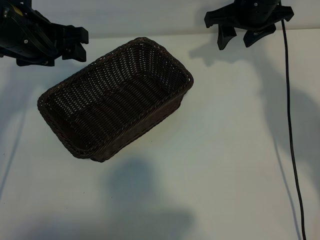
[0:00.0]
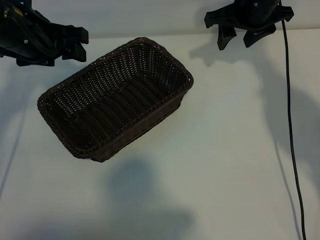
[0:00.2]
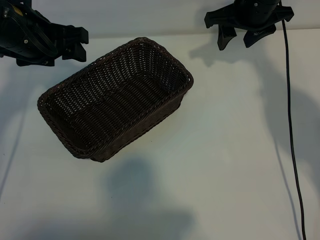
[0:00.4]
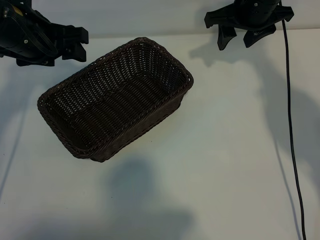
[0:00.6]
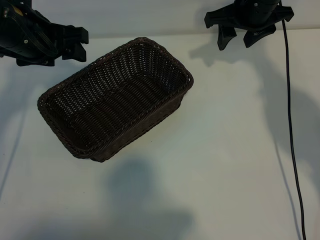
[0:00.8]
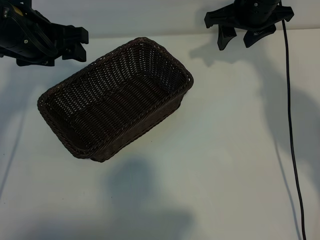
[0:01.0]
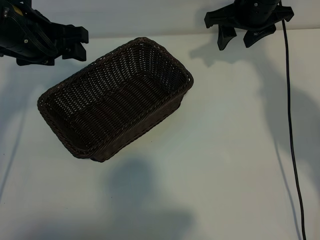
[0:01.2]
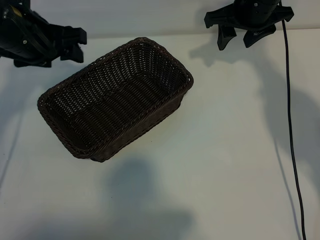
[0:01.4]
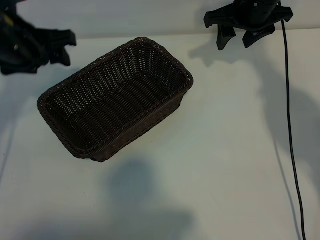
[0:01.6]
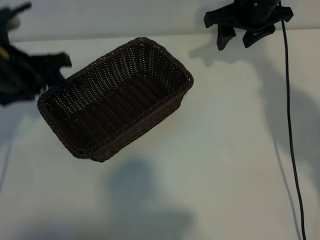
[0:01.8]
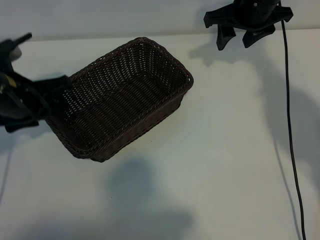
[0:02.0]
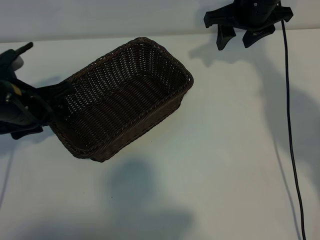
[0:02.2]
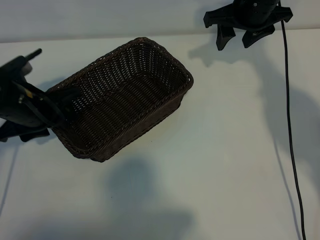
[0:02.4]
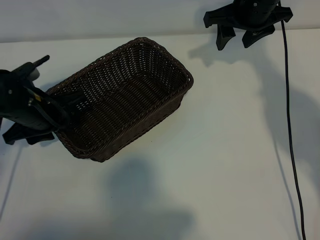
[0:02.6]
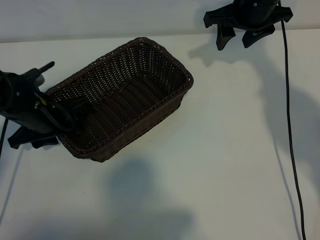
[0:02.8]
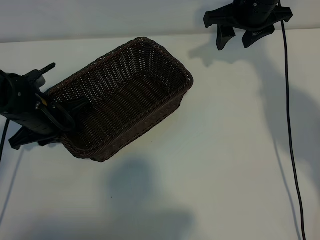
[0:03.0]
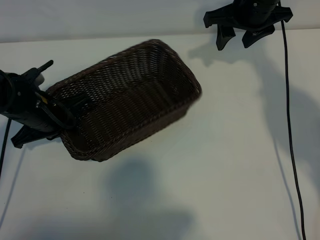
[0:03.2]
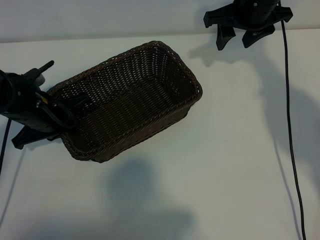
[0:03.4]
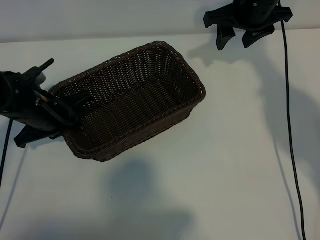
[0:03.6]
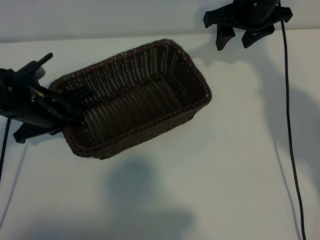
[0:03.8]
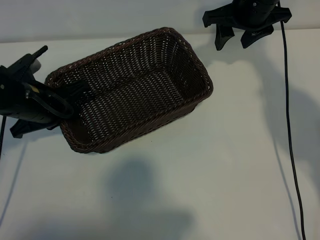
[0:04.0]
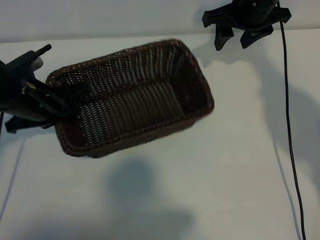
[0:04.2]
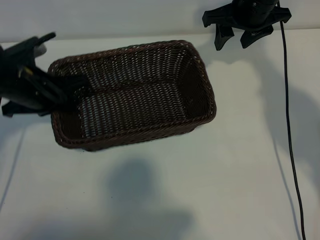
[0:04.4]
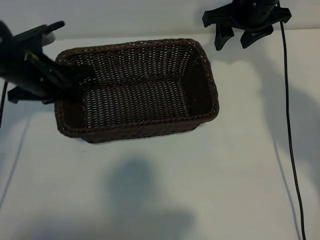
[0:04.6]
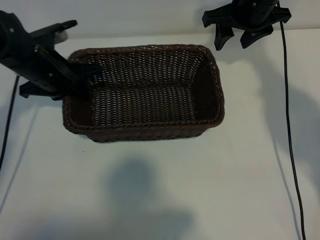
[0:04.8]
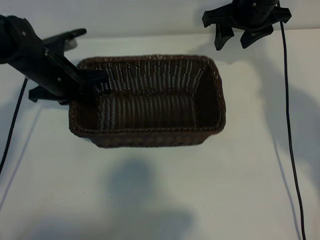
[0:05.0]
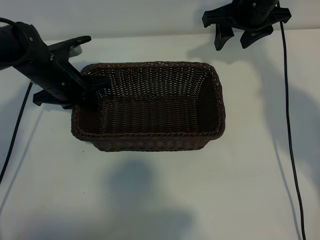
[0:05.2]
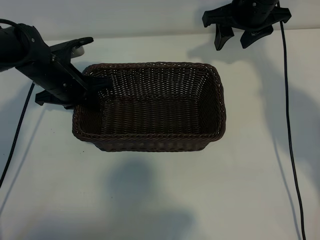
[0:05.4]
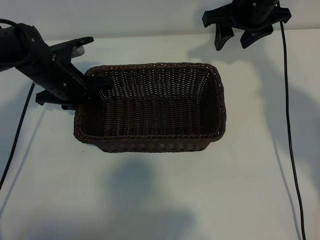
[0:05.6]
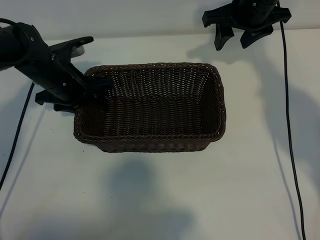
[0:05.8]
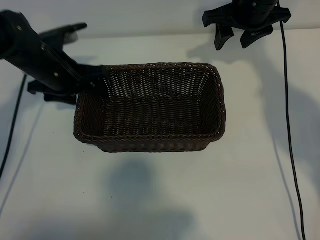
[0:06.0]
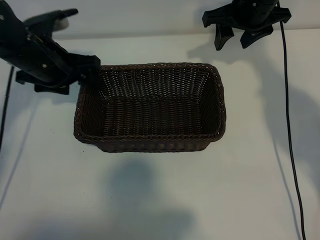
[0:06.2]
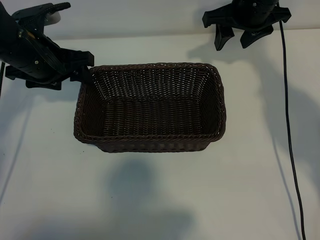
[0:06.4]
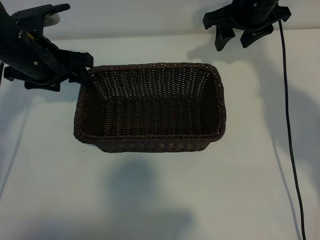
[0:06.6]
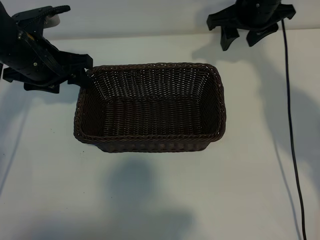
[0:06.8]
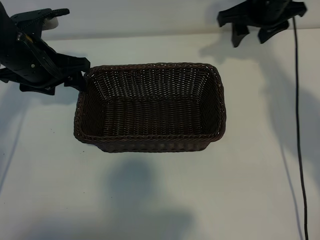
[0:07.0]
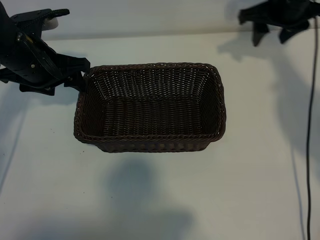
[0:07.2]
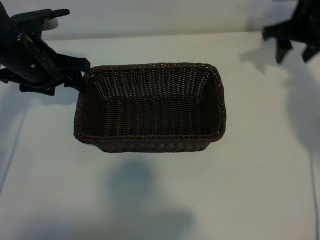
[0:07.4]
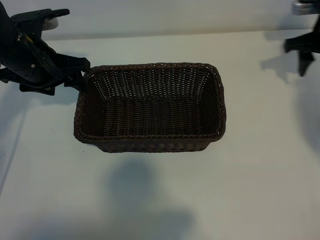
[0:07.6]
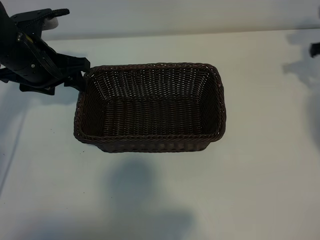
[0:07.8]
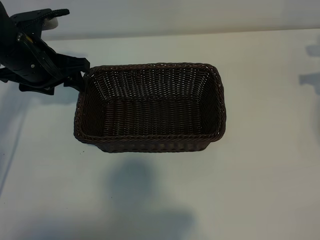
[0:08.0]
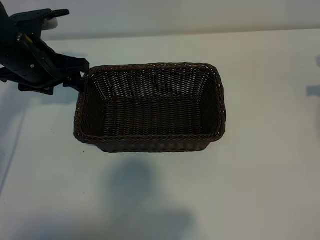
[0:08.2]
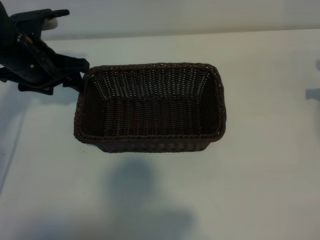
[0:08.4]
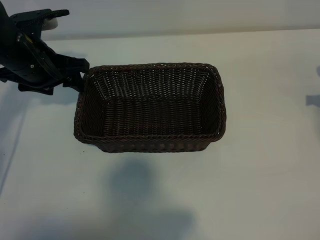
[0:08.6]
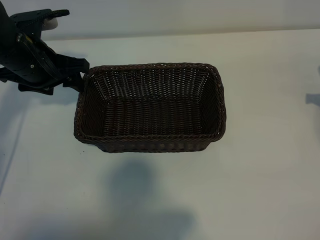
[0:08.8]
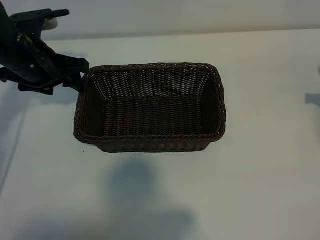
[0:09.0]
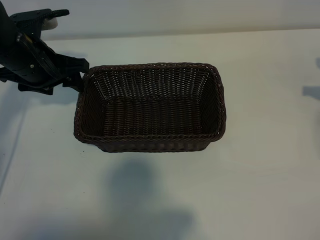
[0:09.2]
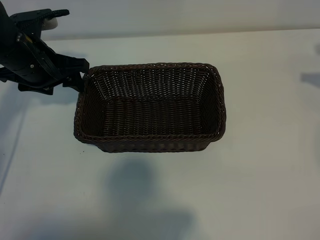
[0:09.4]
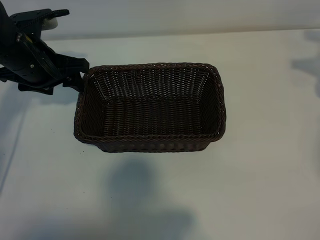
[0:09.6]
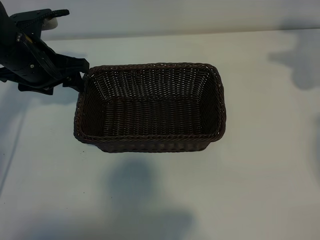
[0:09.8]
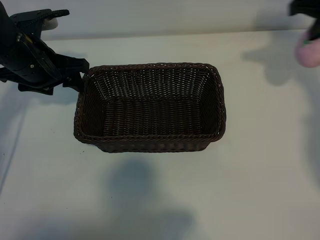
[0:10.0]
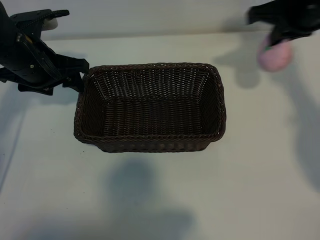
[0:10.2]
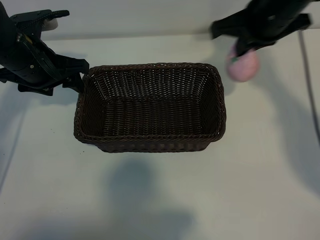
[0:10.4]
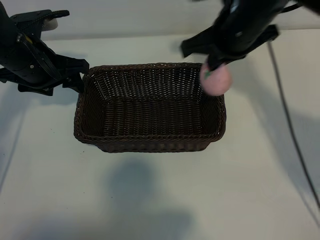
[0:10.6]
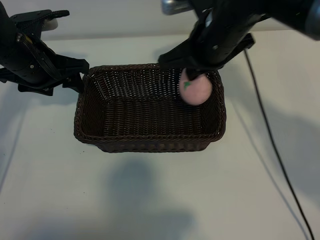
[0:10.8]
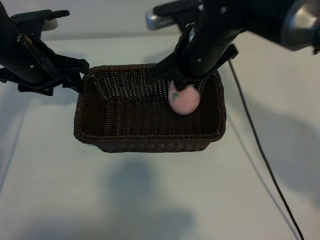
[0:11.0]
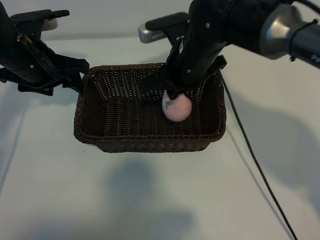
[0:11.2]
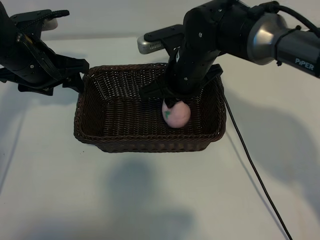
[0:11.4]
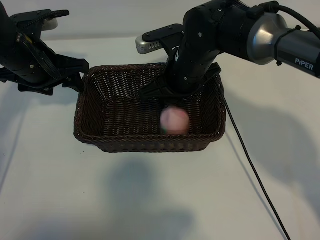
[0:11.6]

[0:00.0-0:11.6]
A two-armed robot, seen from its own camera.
Task of the whole recording: pick up the peach and put it into the basket.
Step, 0:01.2 to 0:03.2: Grasp the basket with left gripper.
Step, 0:03.4 to 0:05.6: Place the basket in the center of view with left gripper.
Step, 0:06.0 to 0:08.8: Grasp the peach with right gripper.

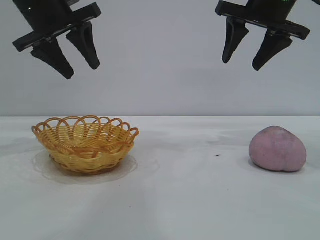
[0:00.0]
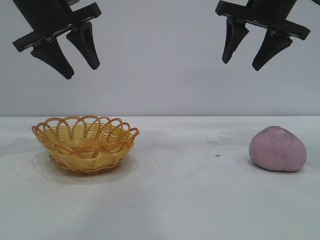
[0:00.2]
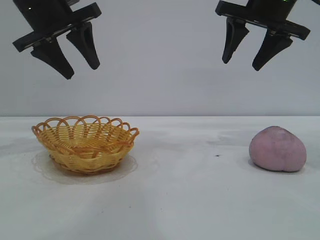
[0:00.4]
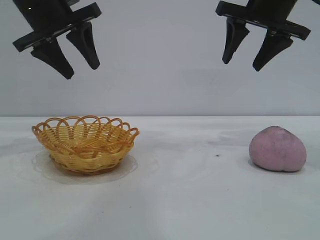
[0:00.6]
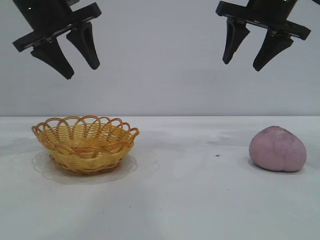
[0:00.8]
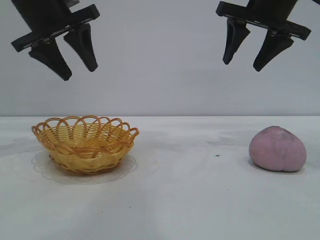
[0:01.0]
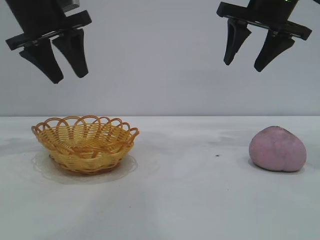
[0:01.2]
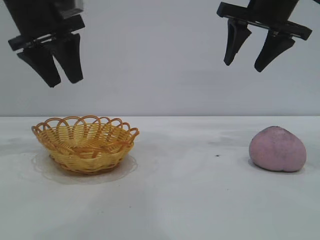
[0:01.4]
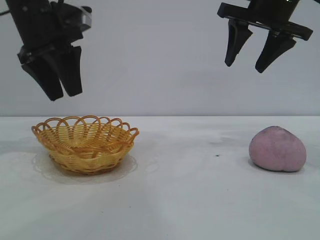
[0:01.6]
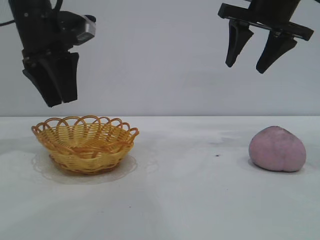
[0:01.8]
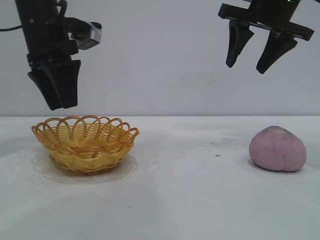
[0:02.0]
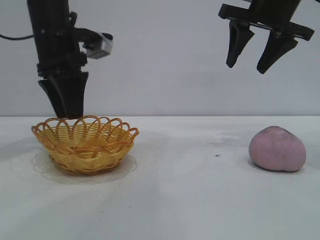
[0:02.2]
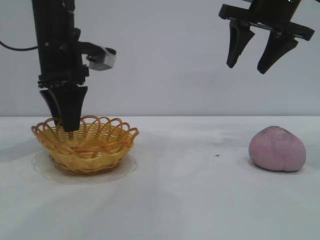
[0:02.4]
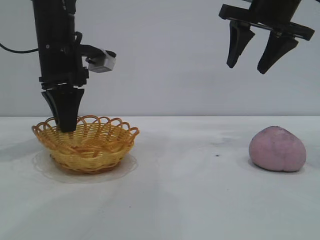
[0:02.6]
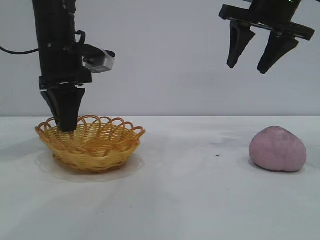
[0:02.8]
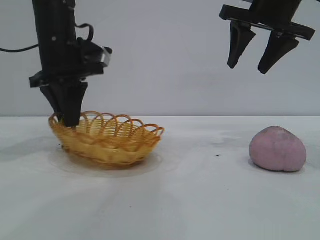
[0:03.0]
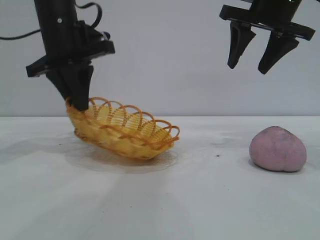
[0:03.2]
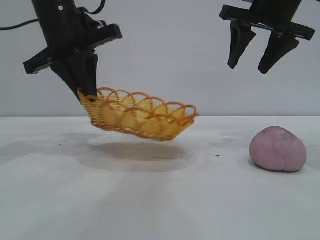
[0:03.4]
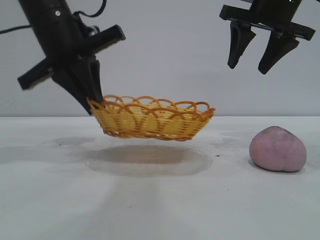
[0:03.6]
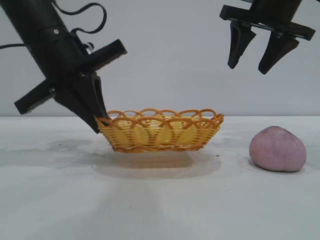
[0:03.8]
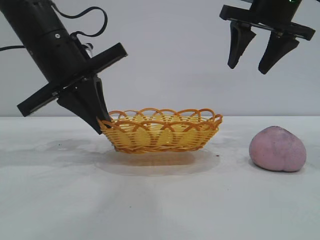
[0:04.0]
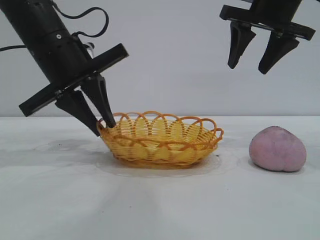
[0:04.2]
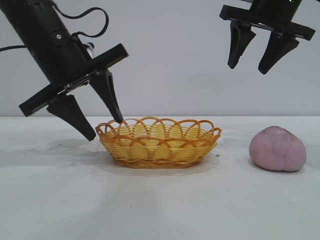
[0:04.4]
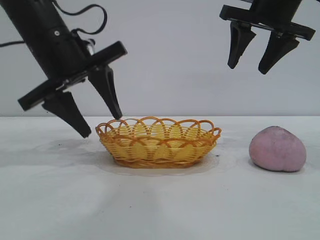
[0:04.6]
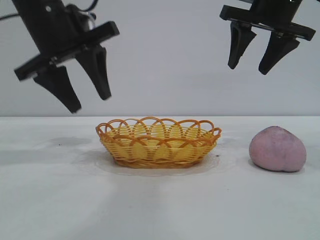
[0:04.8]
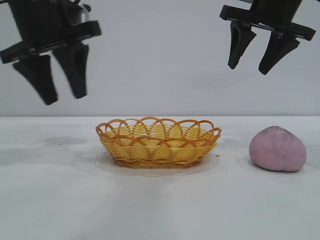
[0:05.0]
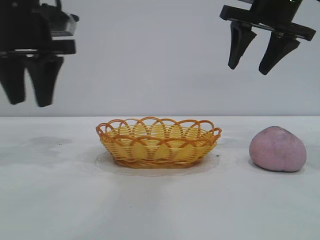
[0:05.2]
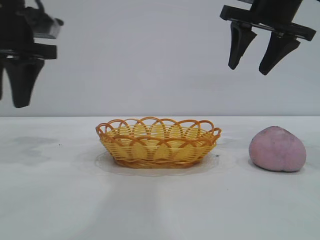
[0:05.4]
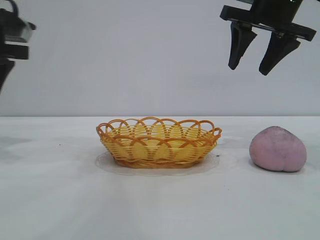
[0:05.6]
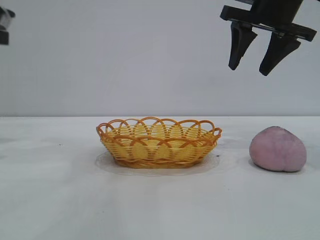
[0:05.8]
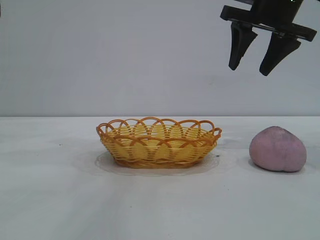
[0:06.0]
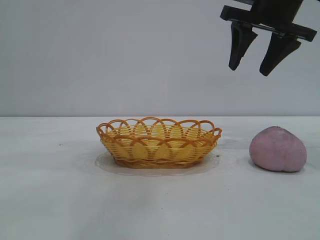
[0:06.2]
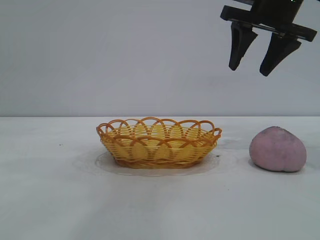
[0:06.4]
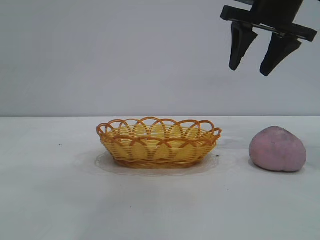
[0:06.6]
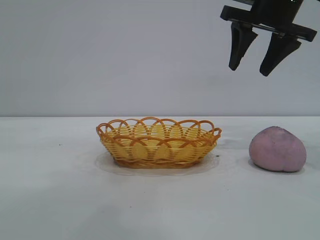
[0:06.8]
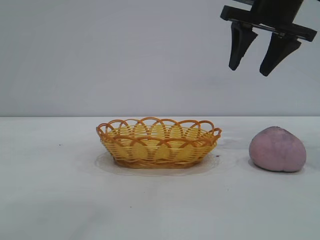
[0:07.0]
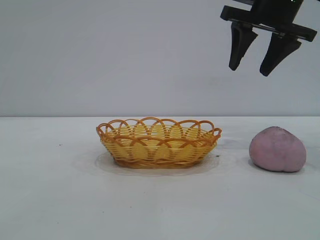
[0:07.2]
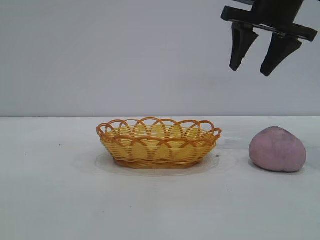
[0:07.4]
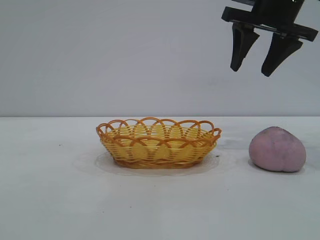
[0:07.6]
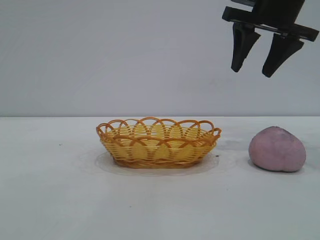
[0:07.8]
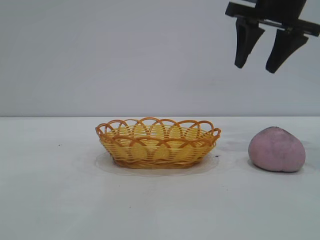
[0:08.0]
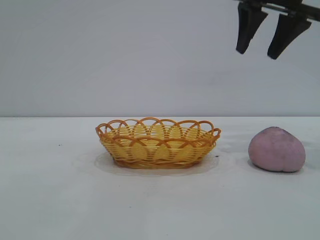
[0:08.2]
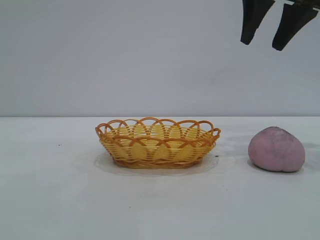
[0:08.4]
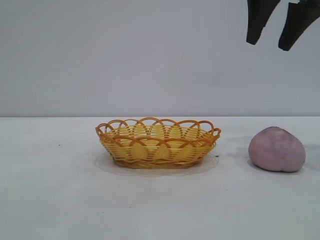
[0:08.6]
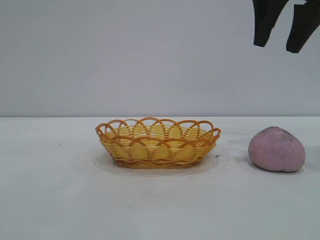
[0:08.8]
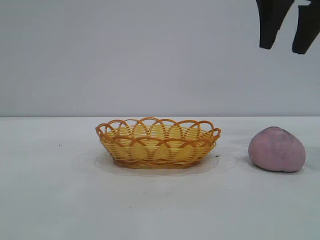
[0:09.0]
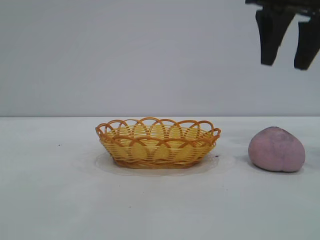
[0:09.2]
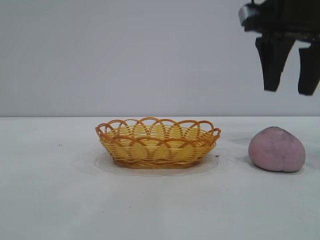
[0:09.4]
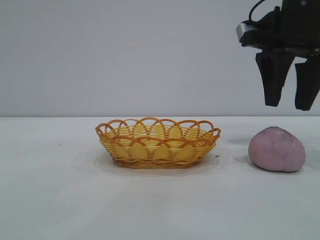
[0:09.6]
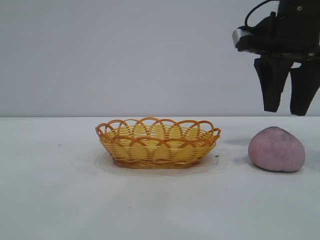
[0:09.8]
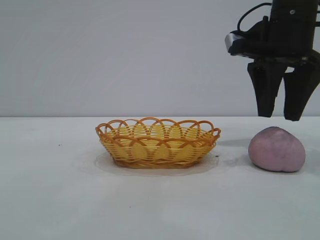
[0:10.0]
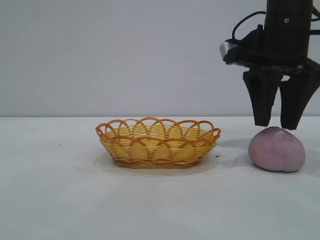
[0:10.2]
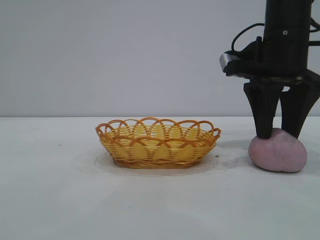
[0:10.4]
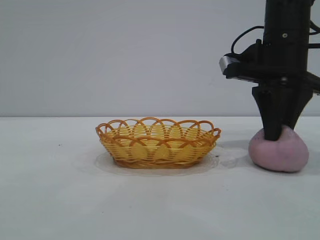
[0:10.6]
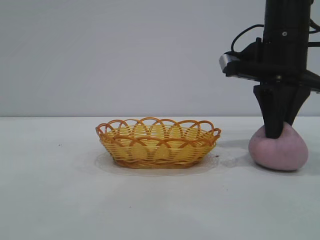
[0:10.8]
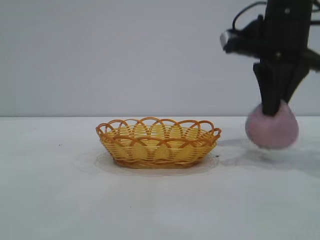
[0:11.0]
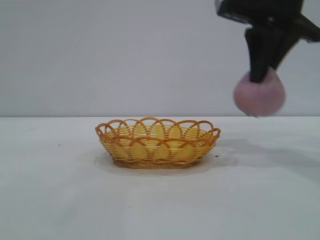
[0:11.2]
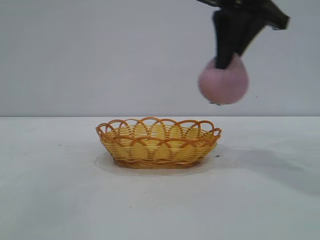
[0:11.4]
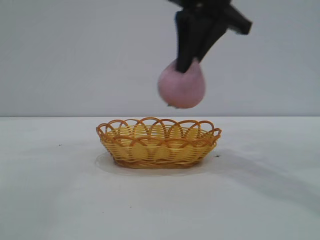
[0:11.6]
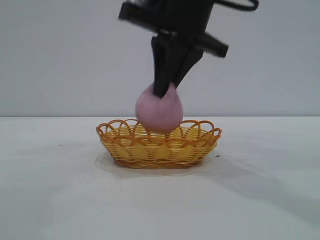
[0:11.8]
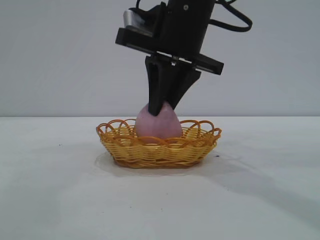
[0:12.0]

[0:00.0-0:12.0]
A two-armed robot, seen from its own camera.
Task of the whole recording: pick up the peach and put it into the basket.
Step, 0:00.0 to 0:04.8: Move the basket to the center of view.
Step, 0:05.0 to 0:11.2: Pick up the peach.
